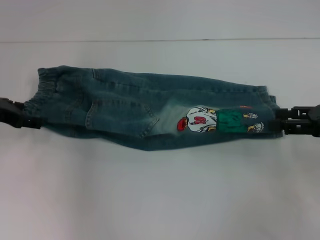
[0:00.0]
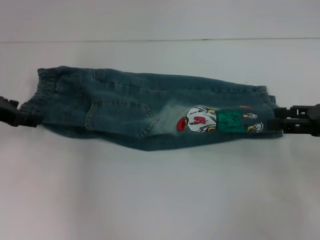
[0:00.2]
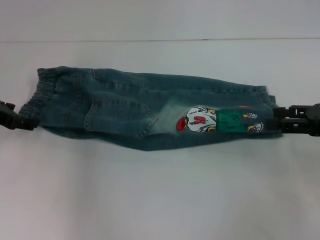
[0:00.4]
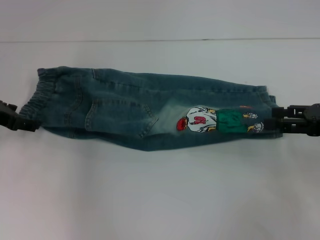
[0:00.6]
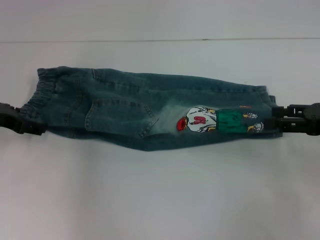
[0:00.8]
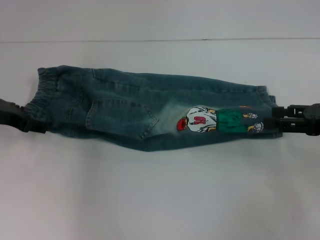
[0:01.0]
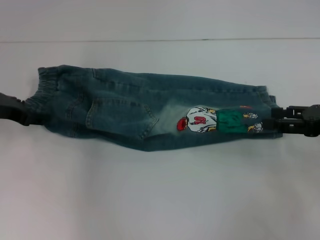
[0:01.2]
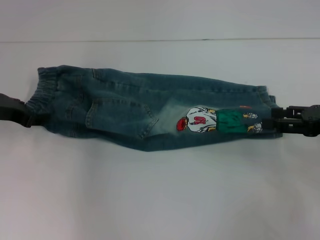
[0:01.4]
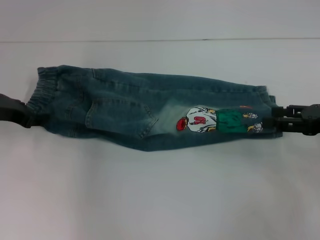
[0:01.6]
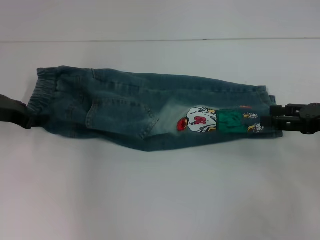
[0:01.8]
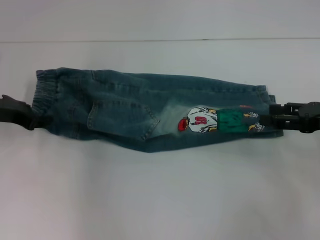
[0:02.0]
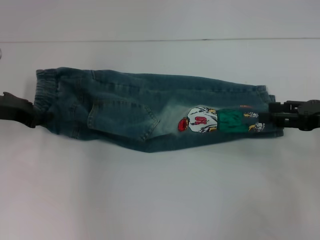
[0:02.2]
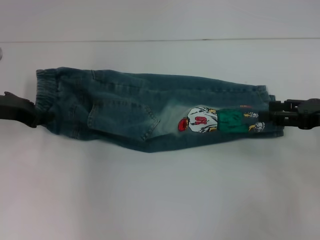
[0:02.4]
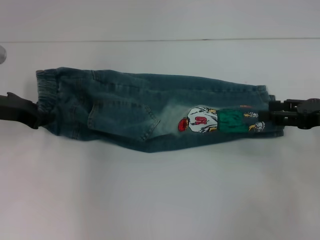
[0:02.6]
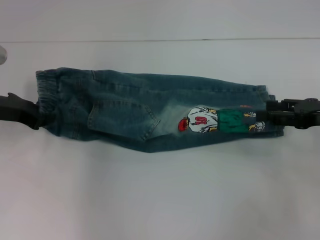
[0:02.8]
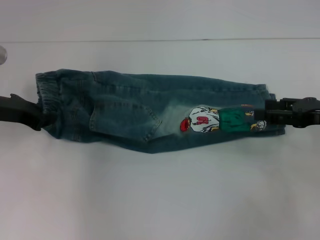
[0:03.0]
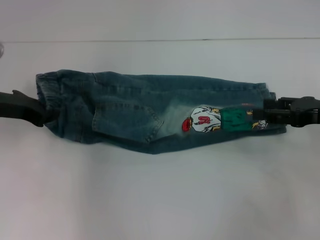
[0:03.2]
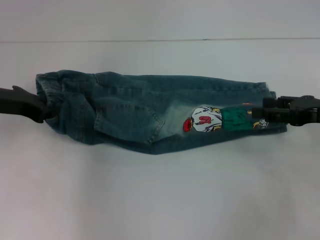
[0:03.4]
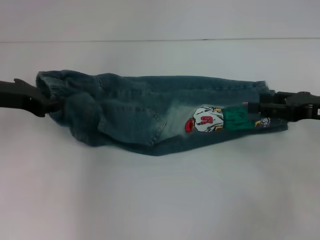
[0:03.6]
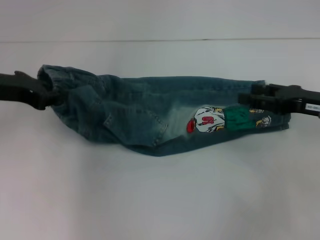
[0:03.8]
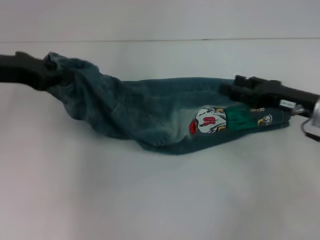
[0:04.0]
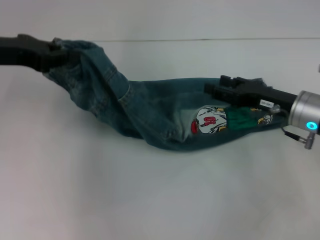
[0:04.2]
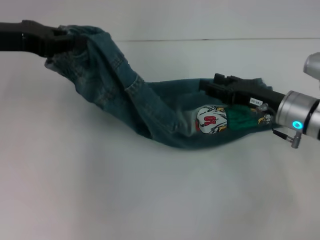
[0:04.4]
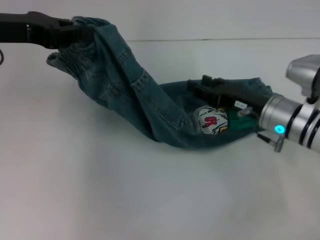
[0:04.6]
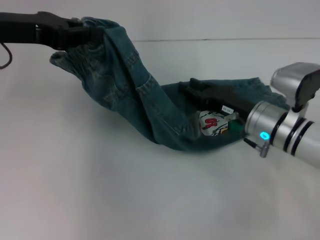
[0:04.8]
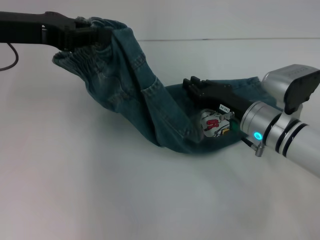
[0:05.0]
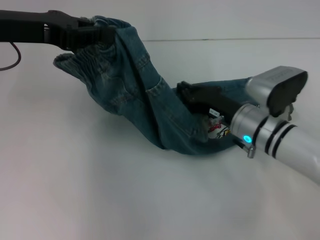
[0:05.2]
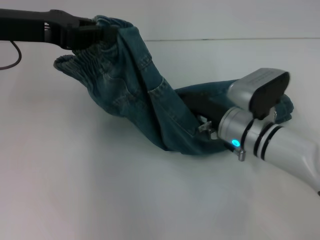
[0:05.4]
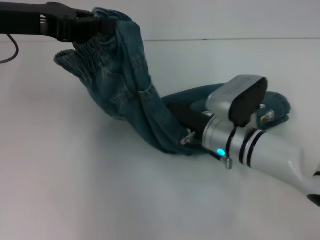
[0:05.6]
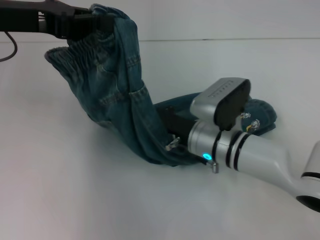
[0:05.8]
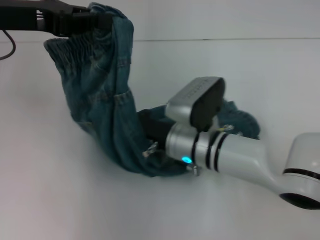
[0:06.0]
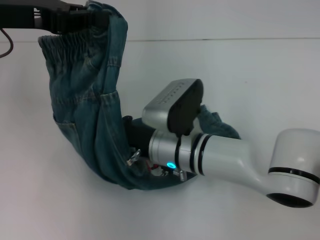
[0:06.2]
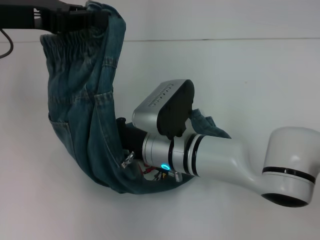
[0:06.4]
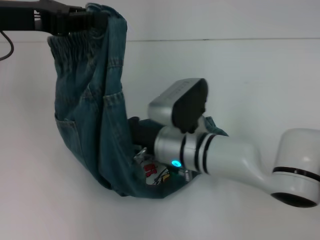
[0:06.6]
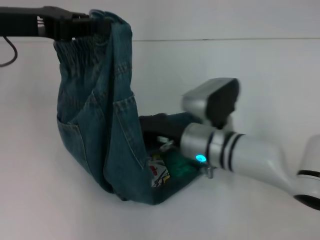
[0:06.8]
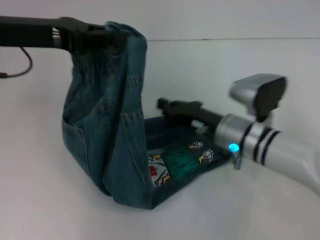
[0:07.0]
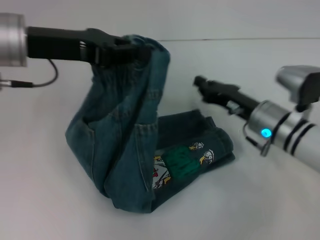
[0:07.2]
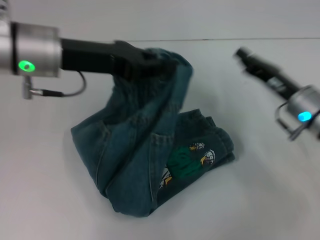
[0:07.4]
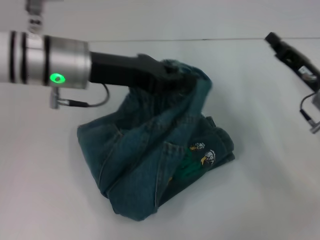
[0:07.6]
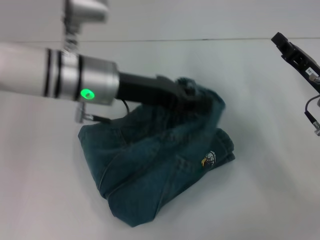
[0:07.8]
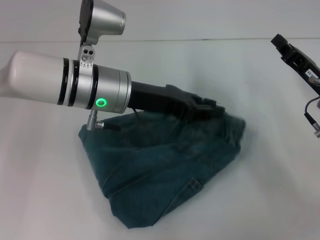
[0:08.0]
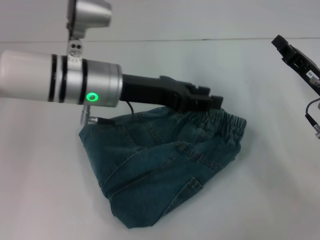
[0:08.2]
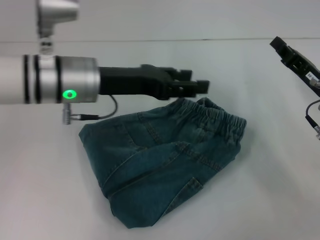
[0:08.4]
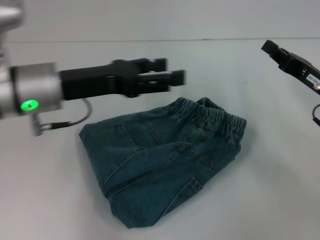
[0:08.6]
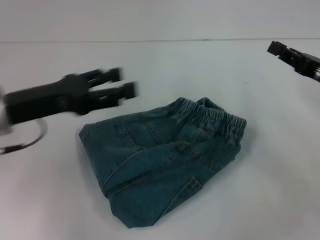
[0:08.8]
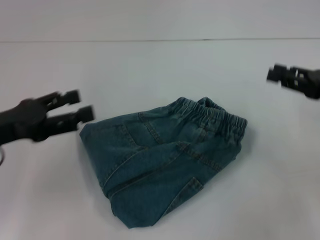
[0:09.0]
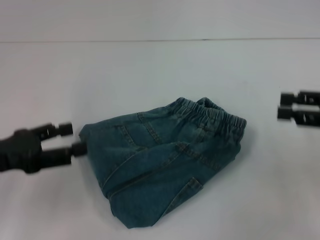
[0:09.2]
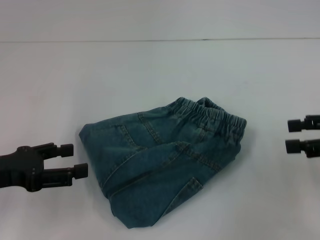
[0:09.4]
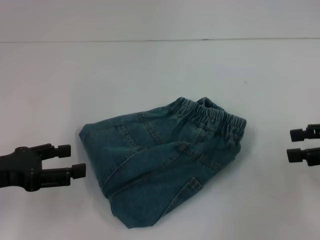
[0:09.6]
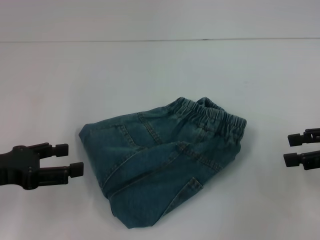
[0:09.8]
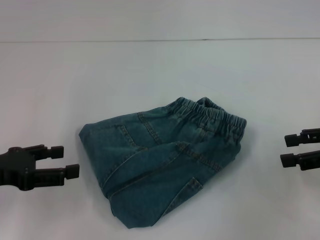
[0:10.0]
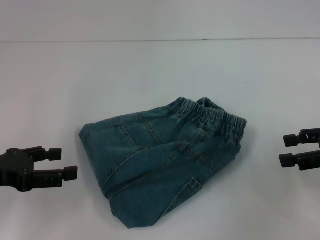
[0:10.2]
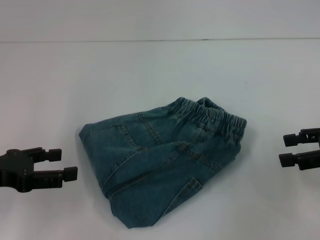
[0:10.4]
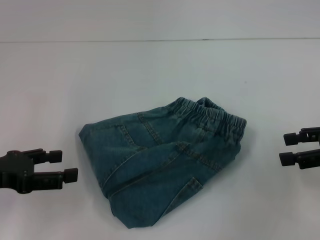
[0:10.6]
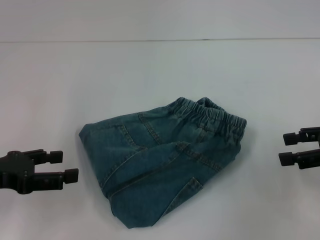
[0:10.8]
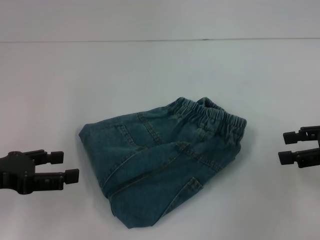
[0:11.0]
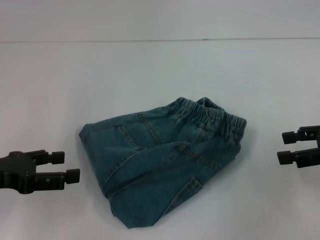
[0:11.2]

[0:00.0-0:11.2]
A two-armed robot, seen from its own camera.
Step, 0:00.0 to 0:03.2: Hold the waistband with your left hand.
Step, 0:03.4 to 0:06.6: Press the middle of the pants with your right hand.
Step, 0:07.0 to 0:08.2: Fold to the right with your left hand.
0:00.0 to 0:01.6: There are only small adjustments of the grippers.
0:01.6 to 0:03.2: The left gripper closes up.
0:03.2 to 0:04.8: The right gripper travels to the left and downward by approximately 15 cm; the left gripper shifts approximately 10 cm upward.
0:04.8 to 0:06.4: The right gripper is displaced to the left by some 15 cm, and closes.
0:06.4 to 0:08.0: The right gripper travels to the right by some 25 cm; the left gripper travels to the right and downward by some 20 cm.
0:08.0 to 0:09.6: The left gripper heads to the left and backward, covering about 25 cm, and opens up; the right gripper moves to the right, upward and backward, some 10 cm, and opens its fingers.
0:09.6 to 0:11.2: The grippers move only a little.
